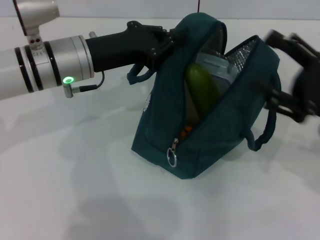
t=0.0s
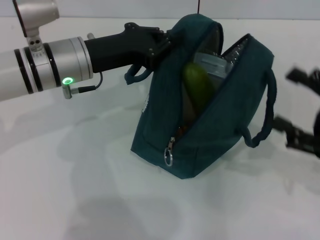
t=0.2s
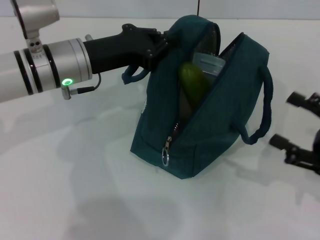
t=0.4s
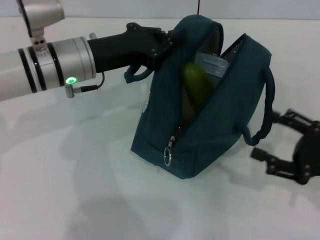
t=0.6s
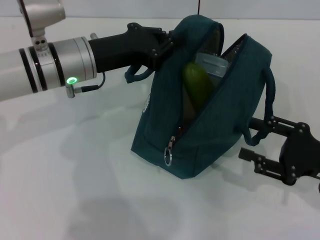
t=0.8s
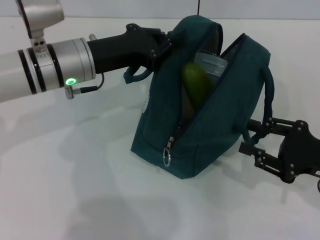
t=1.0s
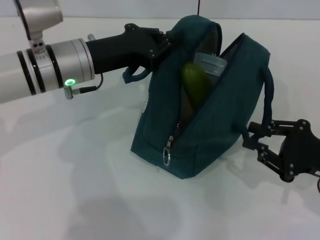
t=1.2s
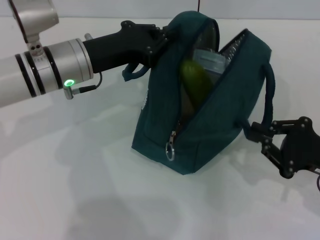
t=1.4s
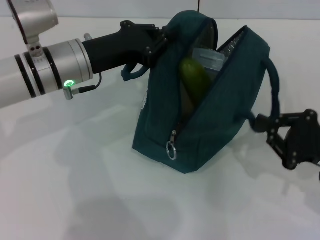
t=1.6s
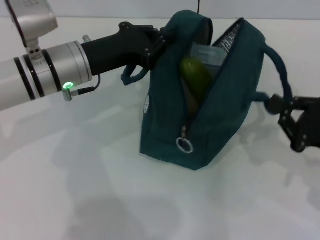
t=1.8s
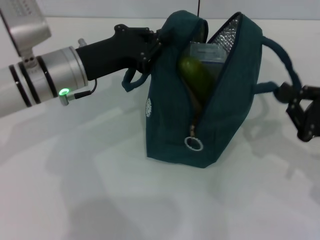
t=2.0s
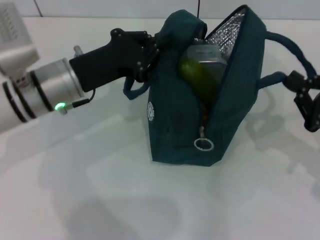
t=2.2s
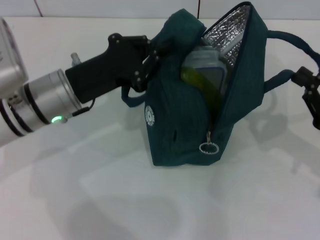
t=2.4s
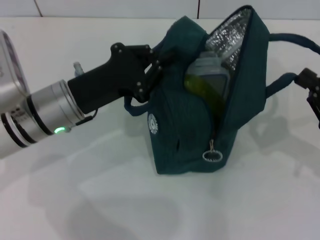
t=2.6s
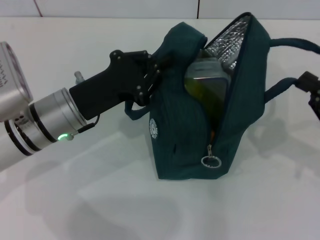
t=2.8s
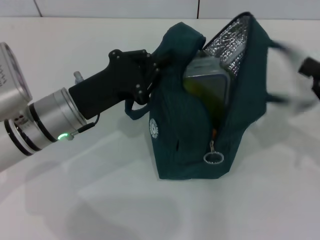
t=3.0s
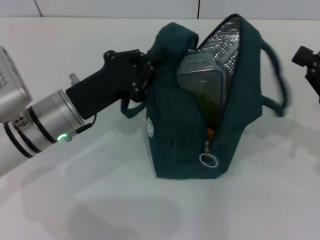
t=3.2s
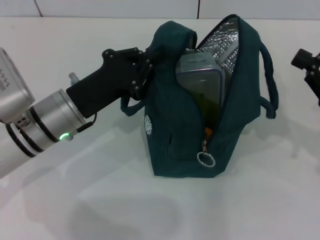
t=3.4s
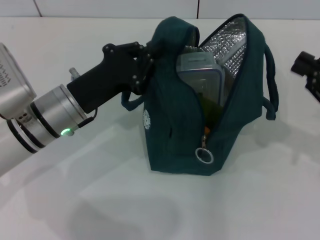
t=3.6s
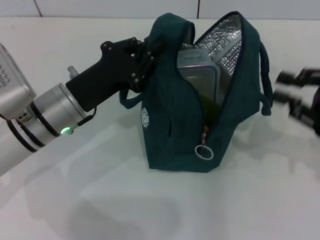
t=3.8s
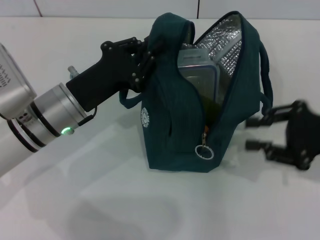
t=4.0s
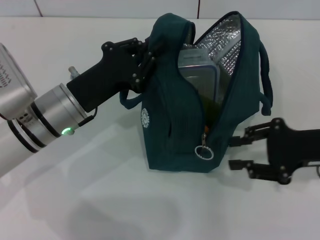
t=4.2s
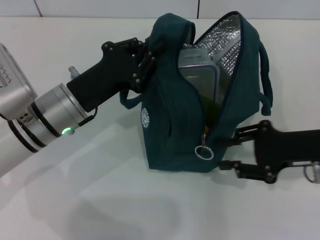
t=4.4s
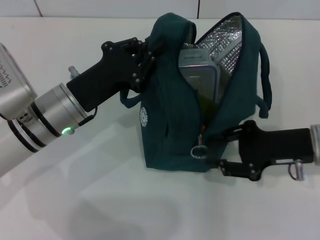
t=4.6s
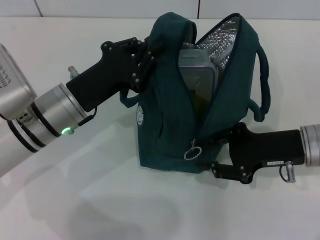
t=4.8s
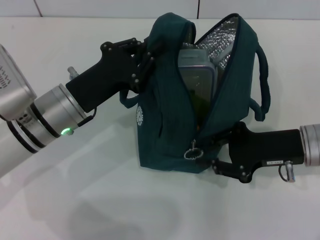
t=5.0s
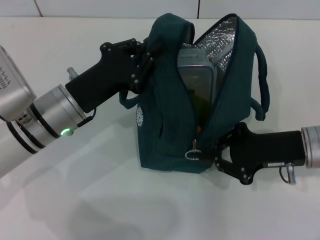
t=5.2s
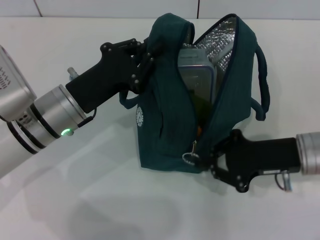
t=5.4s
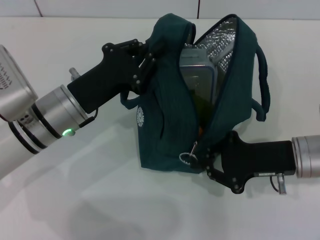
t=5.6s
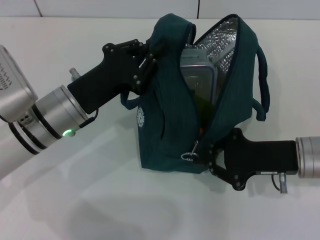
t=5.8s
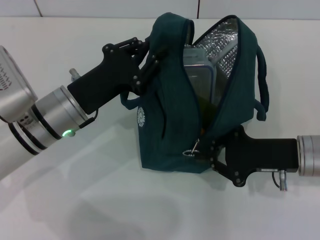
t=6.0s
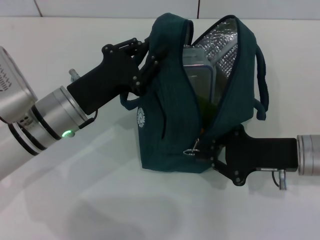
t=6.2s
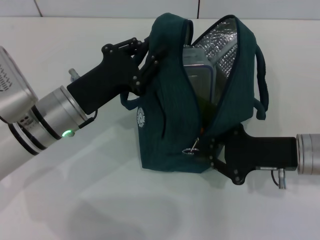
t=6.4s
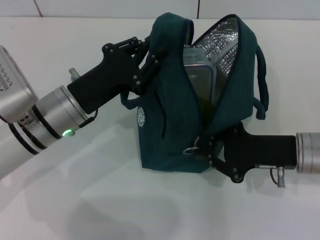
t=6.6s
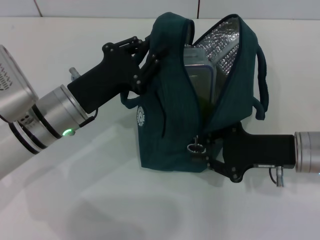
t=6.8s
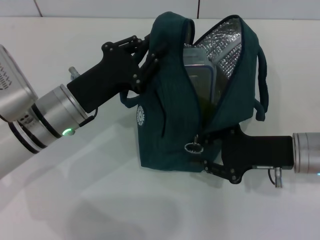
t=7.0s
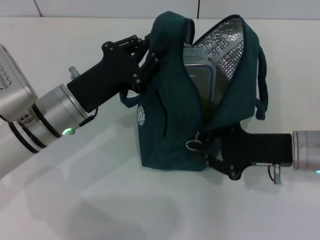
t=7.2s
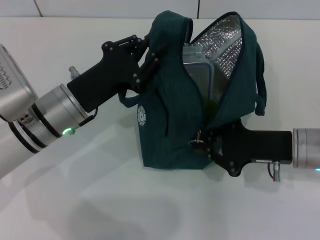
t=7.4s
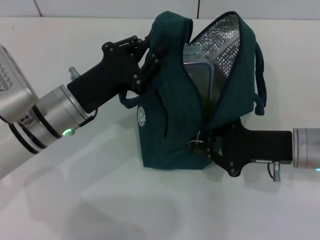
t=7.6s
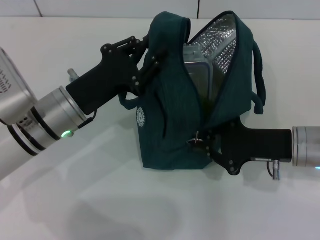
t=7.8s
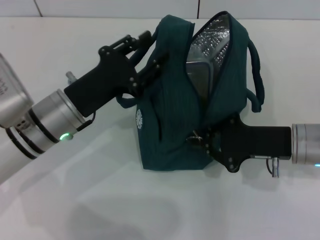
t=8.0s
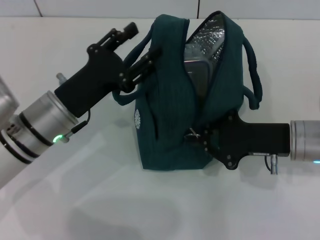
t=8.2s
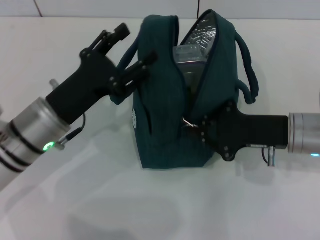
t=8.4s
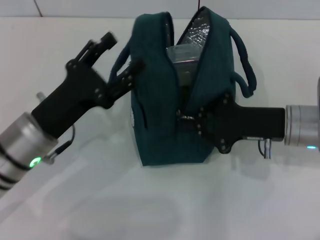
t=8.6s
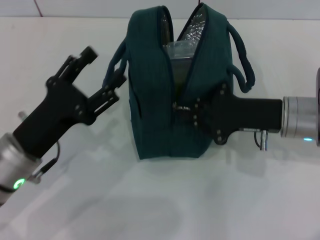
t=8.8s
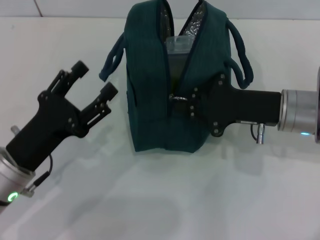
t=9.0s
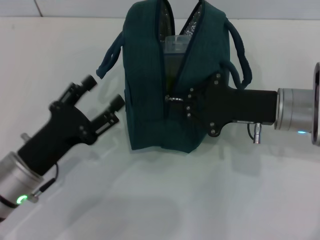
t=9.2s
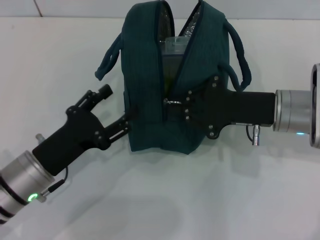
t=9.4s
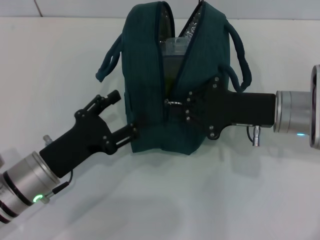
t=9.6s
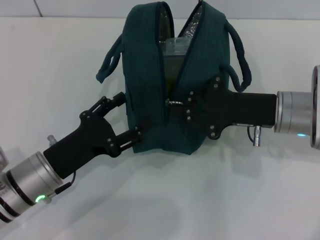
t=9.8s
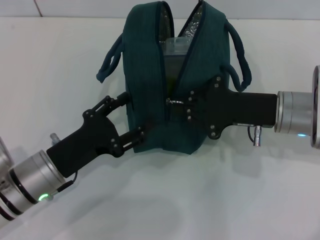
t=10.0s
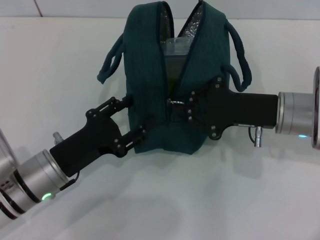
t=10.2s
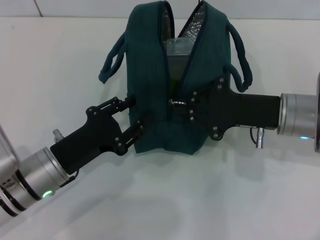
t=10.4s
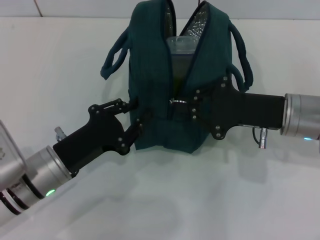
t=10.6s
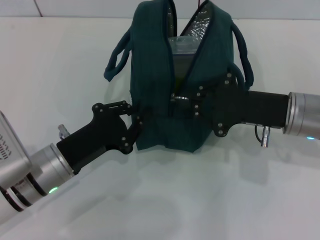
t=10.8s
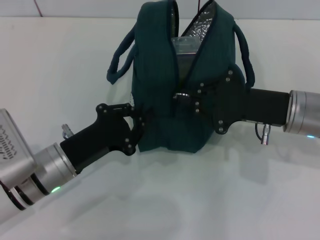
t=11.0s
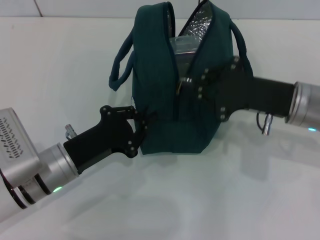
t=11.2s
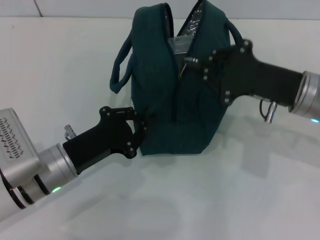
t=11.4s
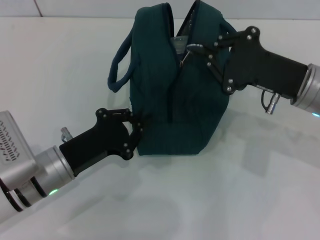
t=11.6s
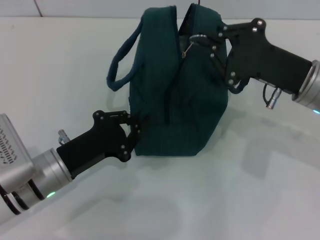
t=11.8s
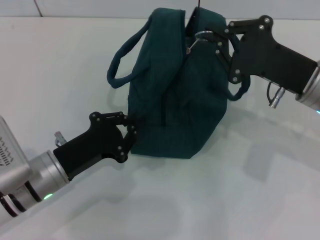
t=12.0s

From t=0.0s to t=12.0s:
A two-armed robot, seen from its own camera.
Step, from t=0.0s to t=3.0s: Hold the lunch bag with your right hand.
Step, from t=3.2s to t=8.2s: Hold the lunch bag with your left hand.
From t=0.0s to t=1.6s: The right gripper moves some 5 cm, and closes its fingers.
From t=1.6s to t=3.0s: The right gripper is displaced upward by some 5 cm; the left gripper heads backward, covering roughly 5 cm.
From t=3.0s to t=4.4s: The right gripper is displaced to the left by about 5 cm, and opens up.
From t=4.4s to t=6.0s: The right gripper closes.
From t=6.0s to t=7.6s: Neither gripper changes place.
From t=7.6s to t=9.0s: The right gripper ends up approximately 5 cm from where it was; the left gripper shifts roughly 10 cm backward and to the left, and opens up.
From t=9.0s to t=10.4s: The grippers make only small movements.
From t=10.4s to t=12.0s: The left gripper closes.

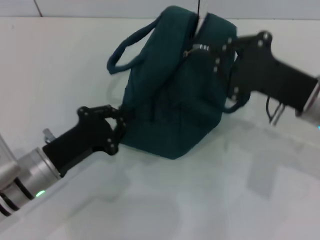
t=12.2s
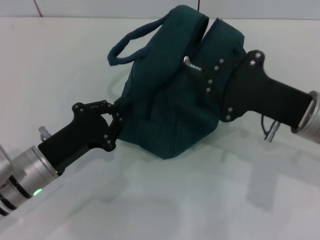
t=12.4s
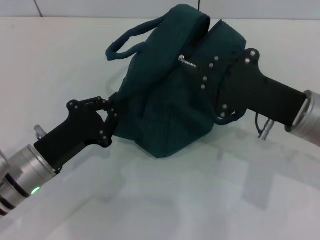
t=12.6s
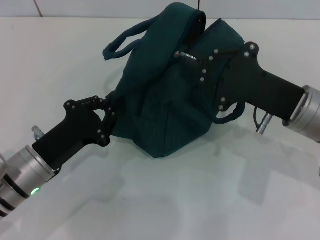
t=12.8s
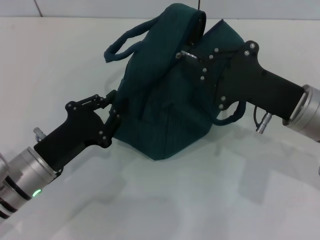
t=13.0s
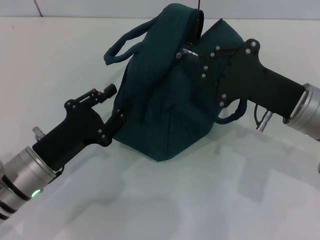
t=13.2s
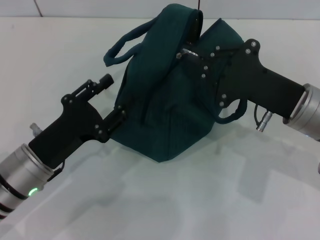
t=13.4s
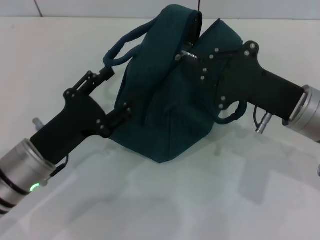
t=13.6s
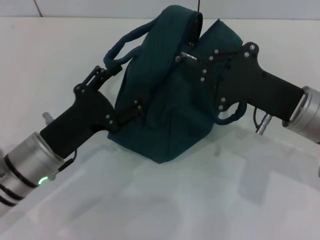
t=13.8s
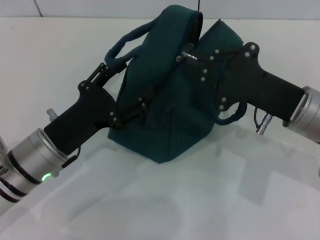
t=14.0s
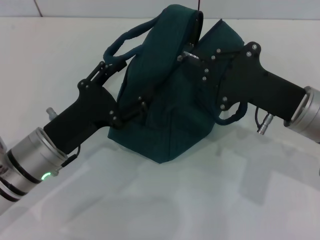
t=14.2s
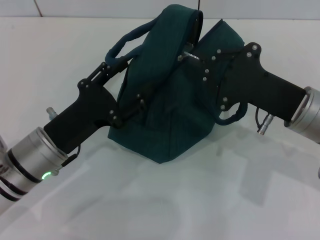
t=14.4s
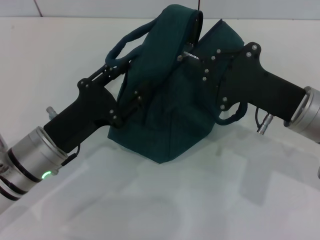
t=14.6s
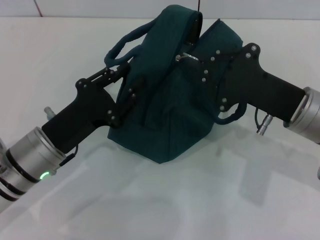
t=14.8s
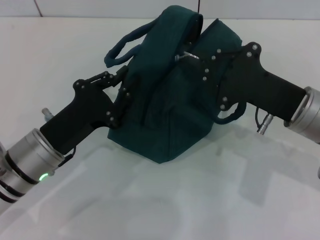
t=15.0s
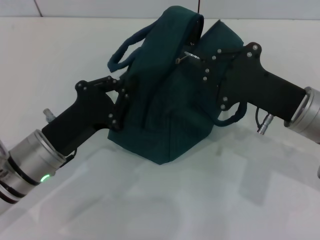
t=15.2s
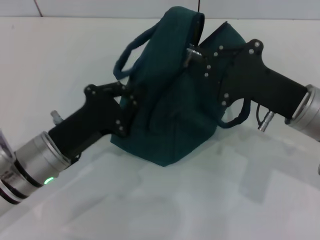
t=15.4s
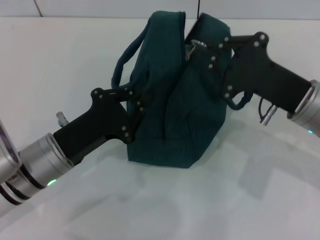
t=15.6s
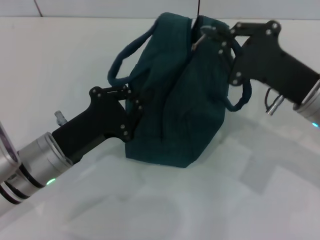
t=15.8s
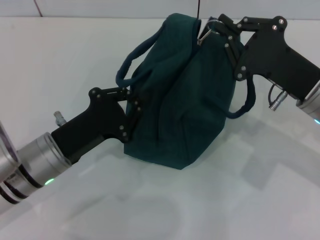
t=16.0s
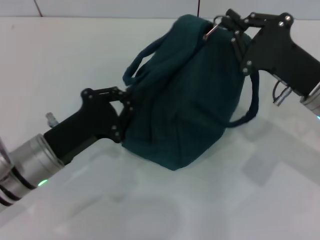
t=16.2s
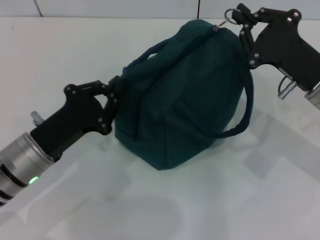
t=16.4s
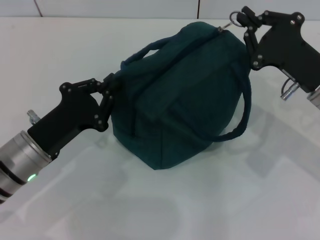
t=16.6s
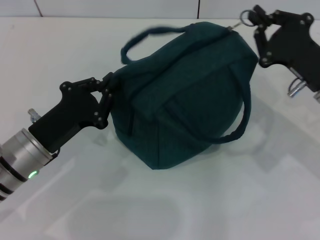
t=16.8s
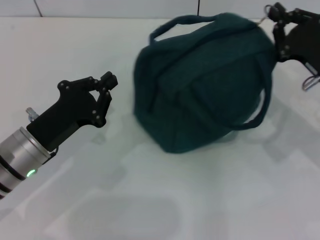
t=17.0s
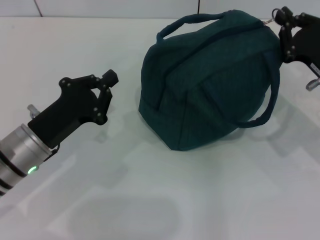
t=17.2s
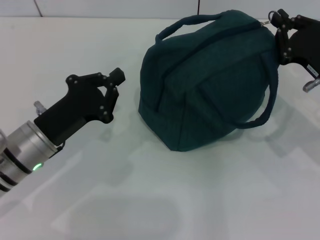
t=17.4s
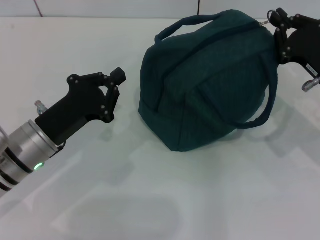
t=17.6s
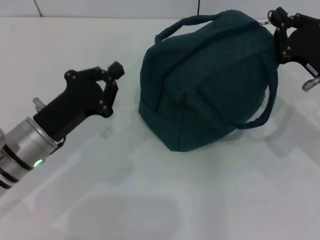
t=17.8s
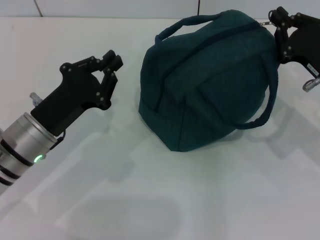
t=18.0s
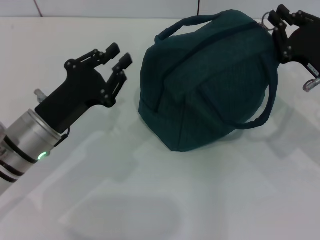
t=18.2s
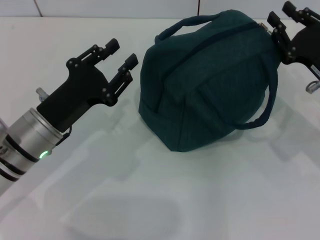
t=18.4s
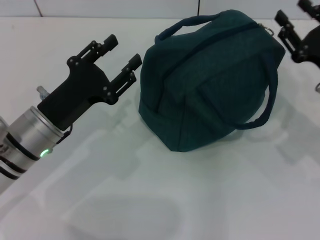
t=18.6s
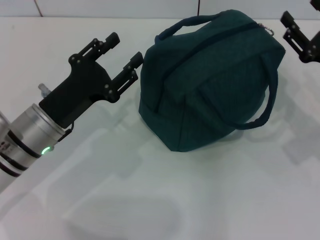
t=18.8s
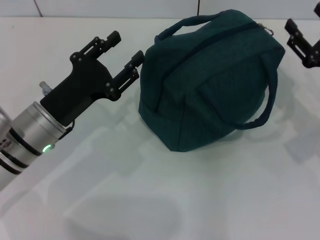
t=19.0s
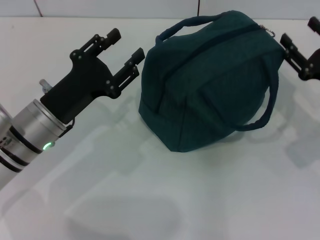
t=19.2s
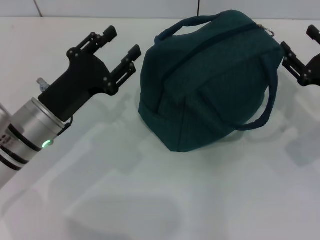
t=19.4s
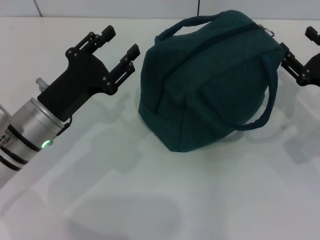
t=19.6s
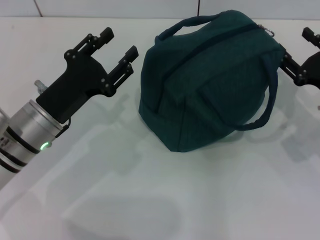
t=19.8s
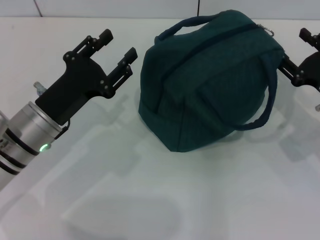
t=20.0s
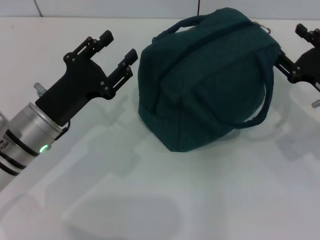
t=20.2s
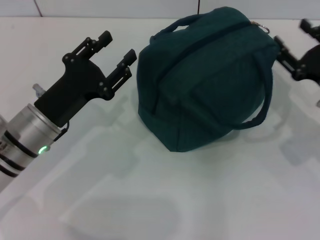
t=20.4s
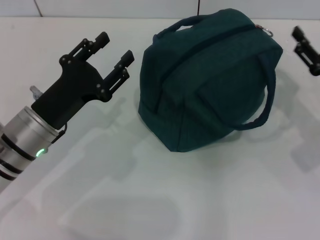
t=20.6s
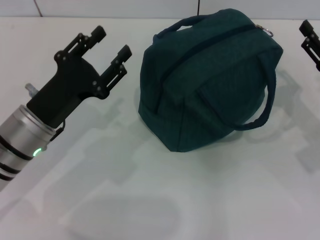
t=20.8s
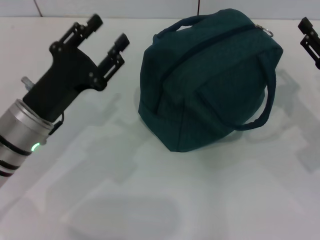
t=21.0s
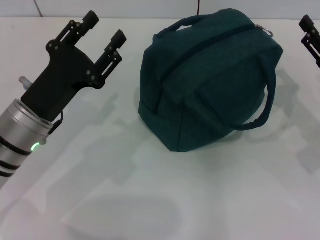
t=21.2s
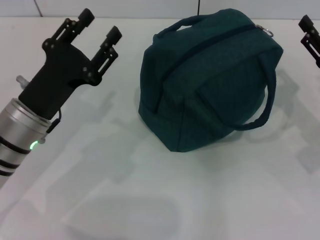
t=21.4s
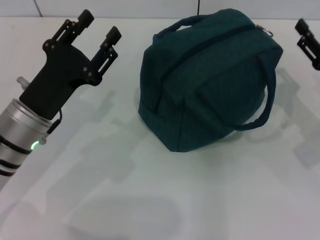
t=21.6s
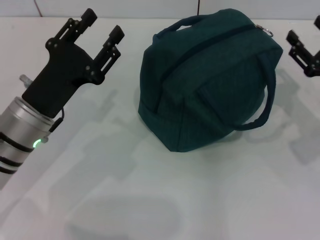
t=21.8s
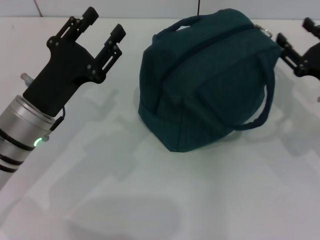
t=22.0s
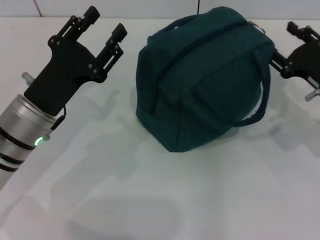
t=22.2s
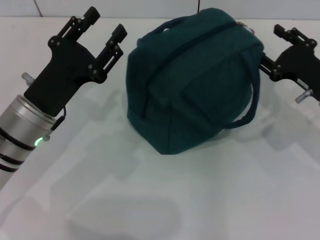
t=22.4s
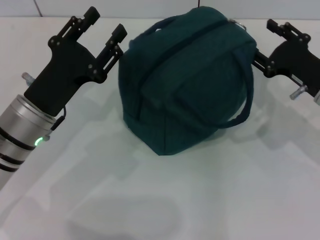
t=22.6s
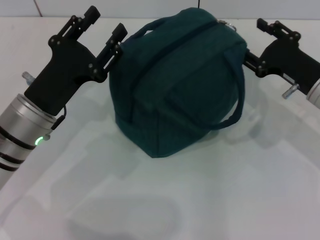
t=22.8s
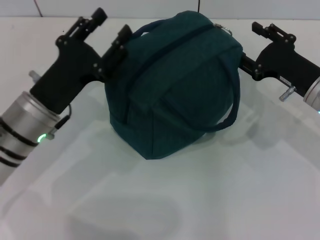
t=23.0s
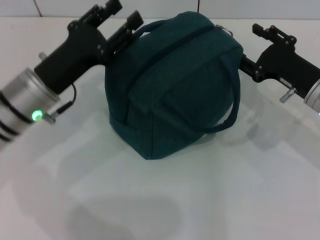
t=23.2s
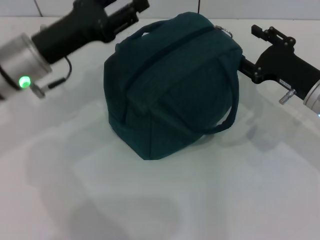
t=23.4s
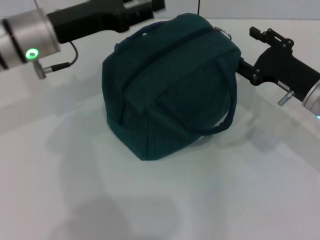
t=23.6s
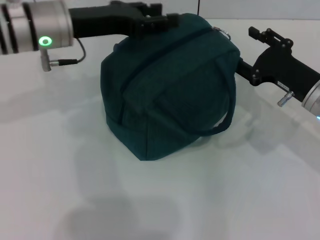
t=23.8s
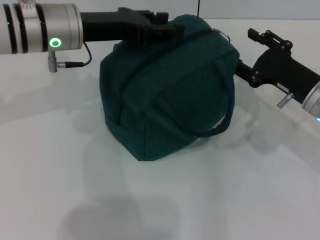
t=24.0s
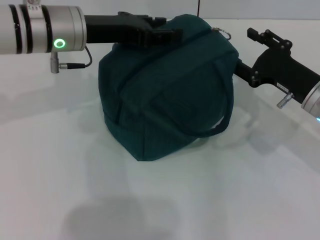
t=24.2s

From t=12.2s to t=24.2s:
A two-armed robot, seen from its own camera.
From t=12.2s to t=13.8s: The left gripper opens its fingers.
From t=13.8s to t=15.2s: The left gripper closes.
From t=18.2s to t=19.8s: The left gripper opens up. The right gripper opens its fingers.
From t=19.8s to t=21.2s: The grippers make only small movements.
From t=21.2s to t=22.6s: The right gripper shifts by approximately 5 cm.
From t=22.6s to t=24.2s: The left gripper shifts roughly 15 cm forward and upward.
